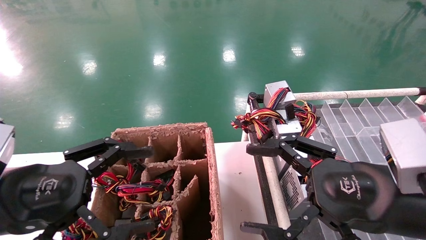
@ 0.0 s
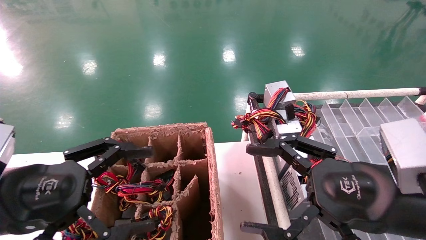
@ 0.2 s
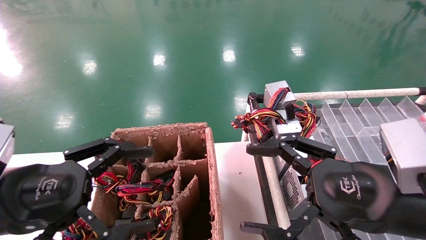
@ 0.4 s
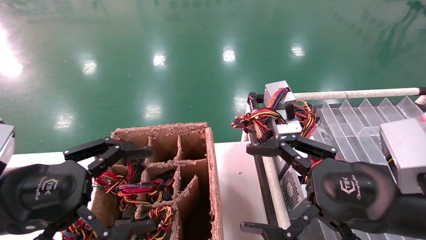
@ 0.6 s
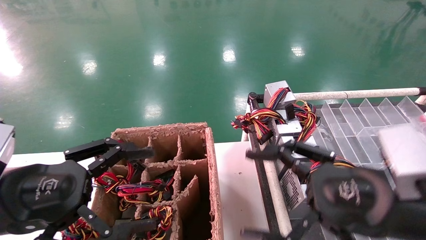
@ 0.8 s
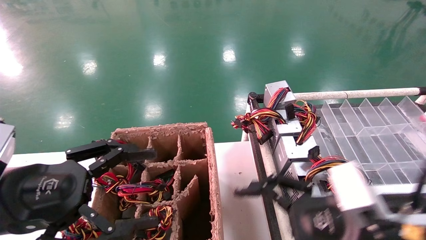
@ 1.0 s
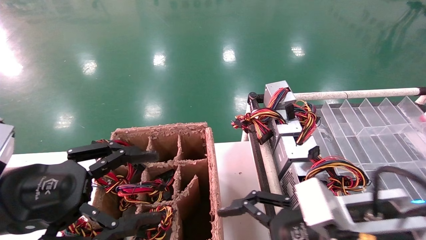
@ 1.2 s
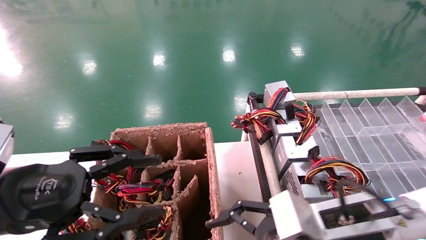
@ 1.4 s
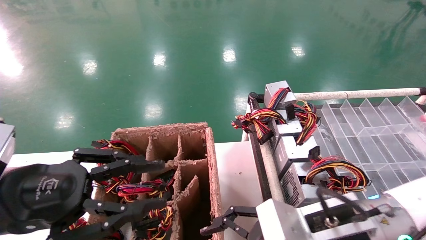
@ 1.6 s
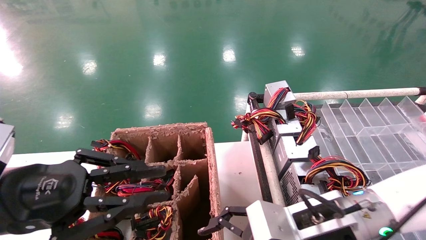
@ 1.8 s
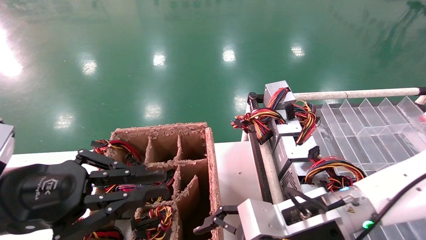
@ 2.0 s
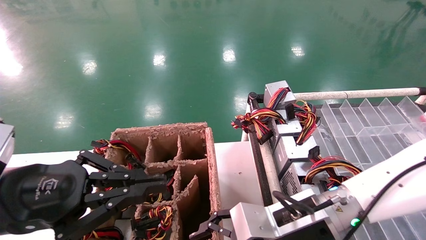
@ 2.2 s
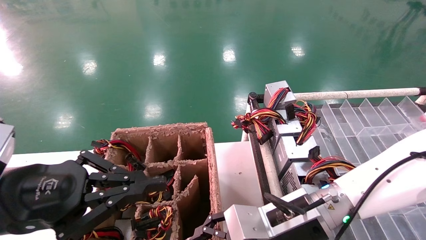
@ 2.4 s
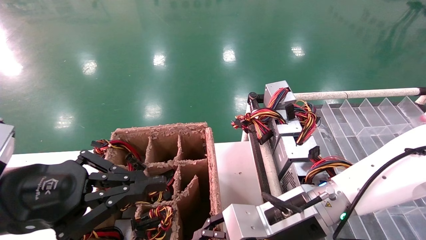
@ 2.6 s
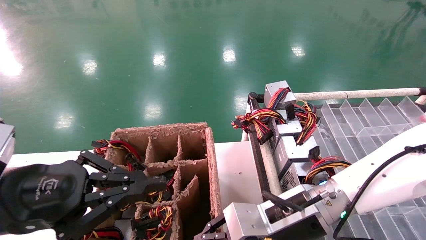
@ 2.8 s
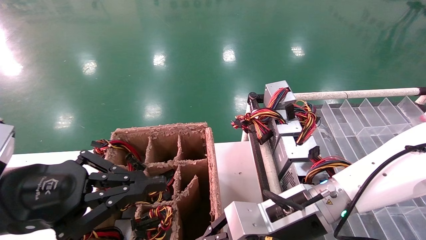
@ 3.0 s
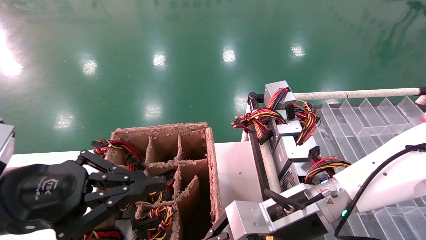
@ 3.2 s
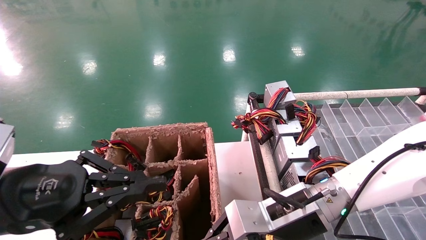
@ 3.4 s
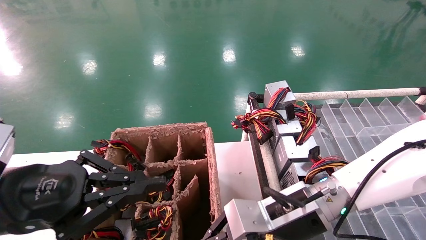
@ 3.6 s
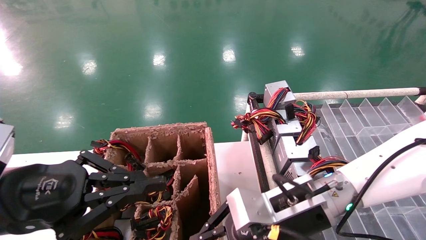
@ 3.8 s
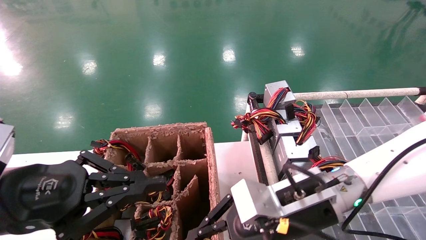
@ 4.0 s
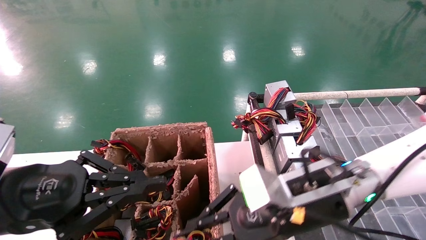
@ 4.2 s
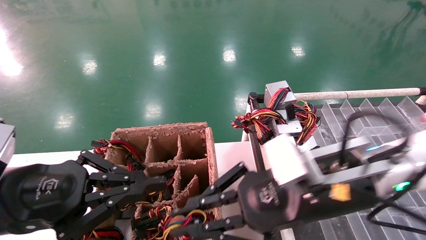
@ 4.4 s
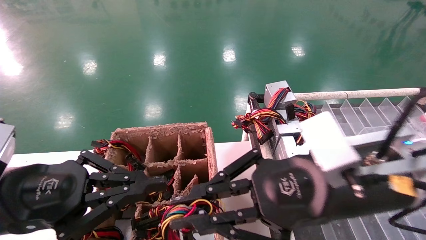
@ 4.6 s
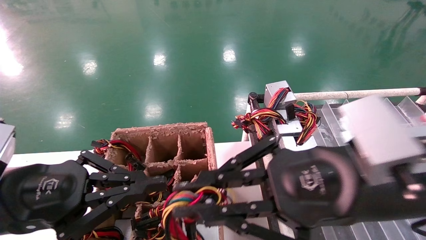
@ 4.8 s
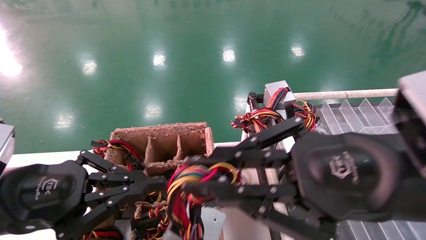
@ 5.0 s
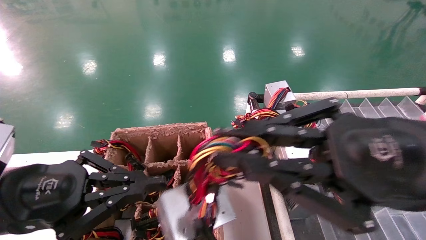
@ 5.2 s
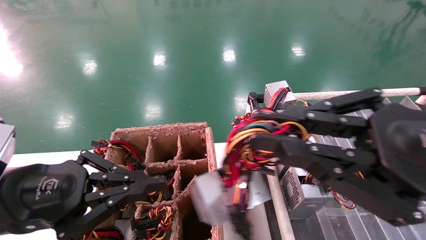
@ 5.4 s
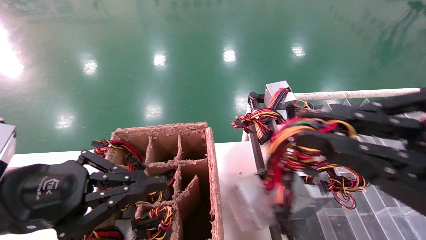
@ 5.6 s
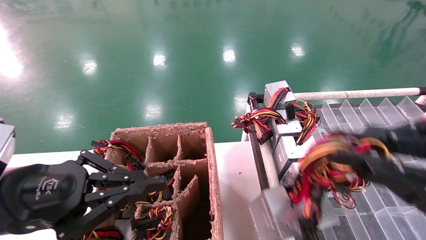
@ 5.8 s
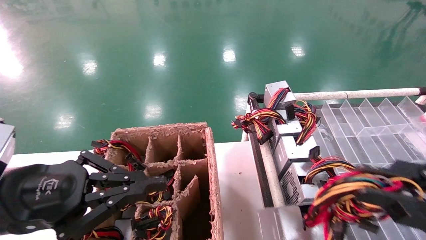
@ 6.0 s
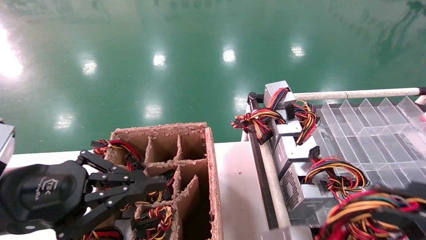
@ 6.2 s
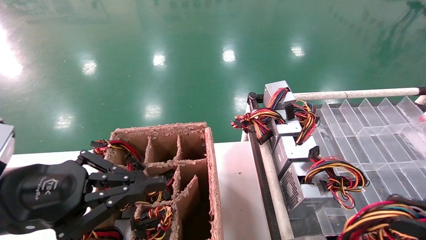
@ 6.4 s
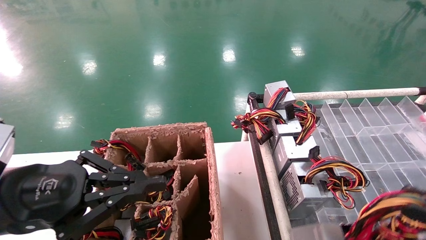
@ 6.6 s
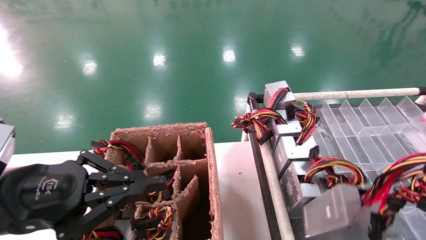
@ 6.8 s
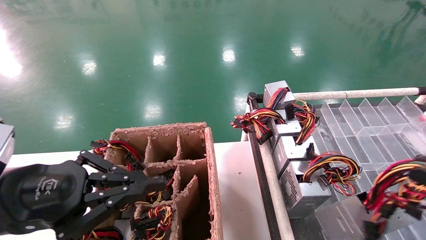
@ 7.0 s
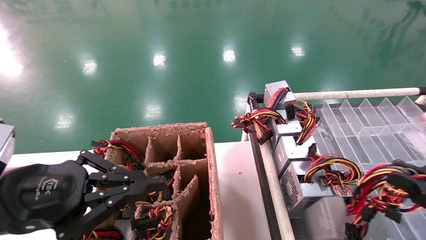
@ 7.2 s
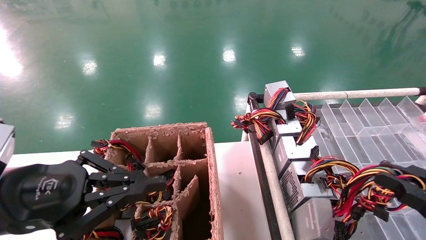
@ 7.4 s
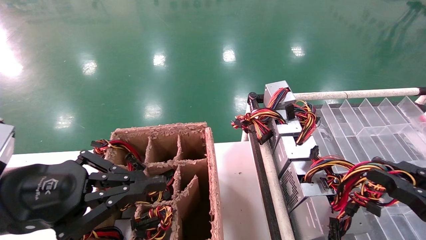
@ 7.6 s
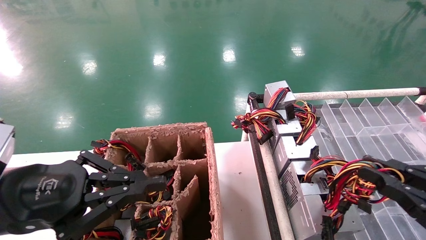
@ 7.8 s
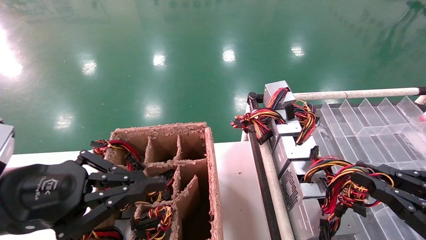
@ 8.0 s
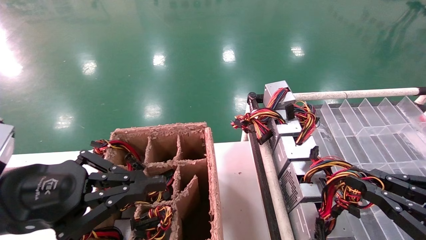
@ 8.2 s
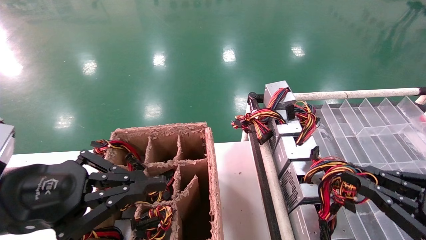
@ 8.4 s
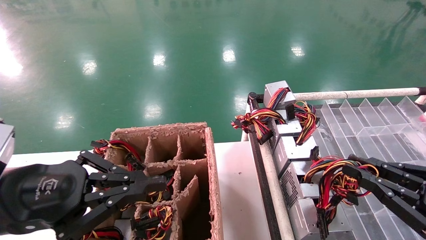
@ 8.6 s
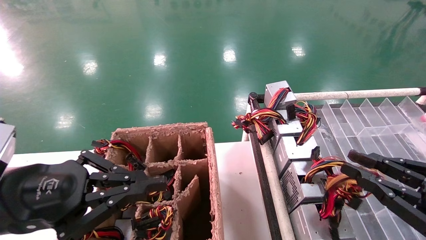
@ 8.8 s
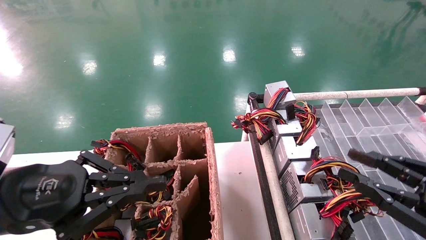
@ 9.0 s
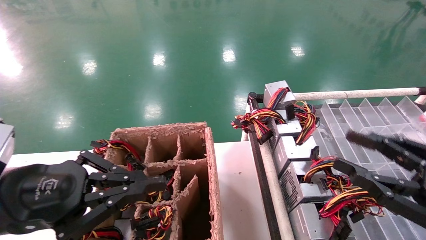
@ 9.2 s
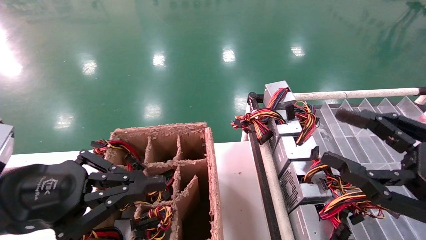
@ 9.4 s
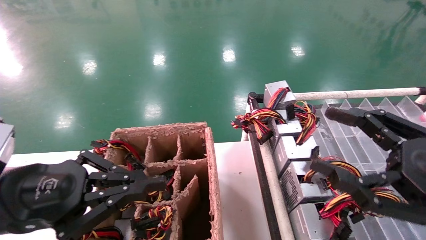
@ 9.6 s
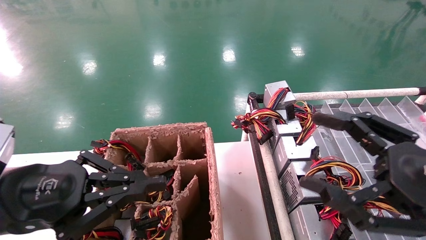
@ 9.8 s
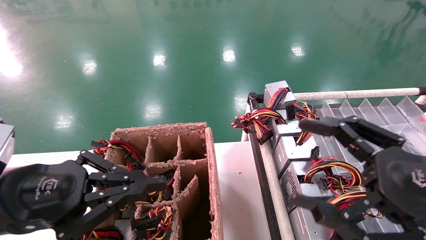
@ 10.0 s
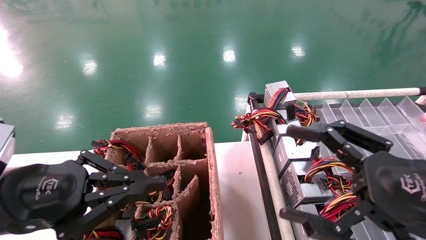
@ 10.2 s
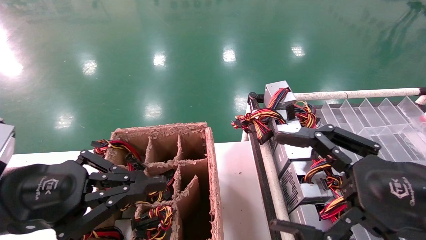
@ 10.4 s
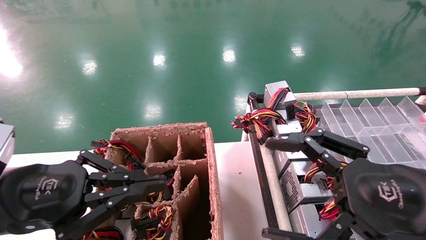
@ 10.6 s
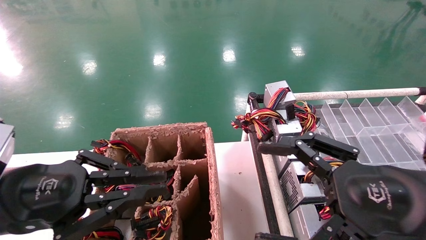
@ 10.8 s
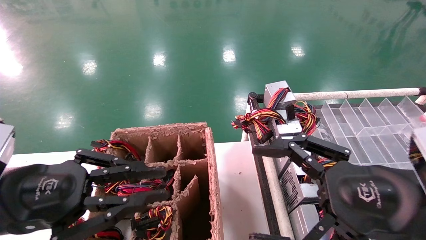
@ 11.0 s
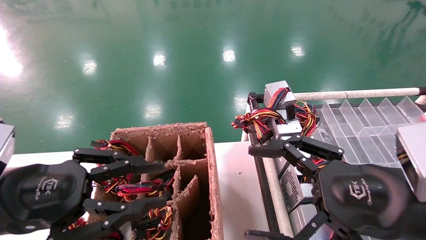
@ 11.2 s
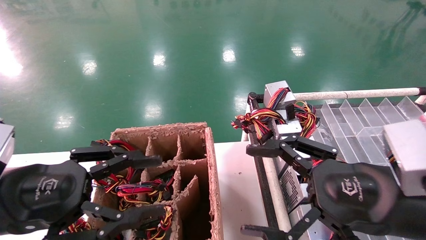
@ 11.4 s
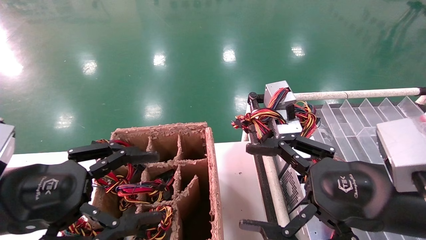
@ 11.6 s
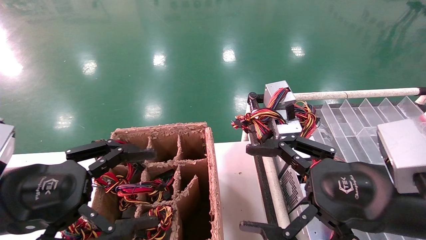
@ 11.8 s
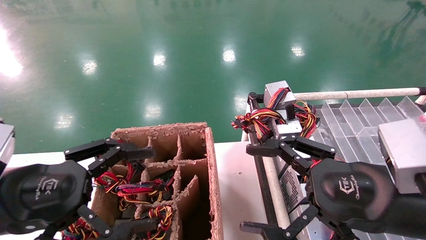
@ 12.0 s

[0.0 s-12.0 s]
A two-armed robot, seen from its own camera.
Step, 1.2 to 3.4 s: Grab the main unit power supply from the containment box.
Step, 3.6 to 8.8 s: Place the main unit power supply in the designated area.
0.0 to 1.6 s: The right gripper goes some 10 cm to the left and downward; the left gripper closes its fingers.
1.6 to 3.0 s: The left gripper closes its fingers. Meanwhile the right gripper moves roughly 5 cm, and closes up.
3.0 to 4.4 s: The right gripper travels upward by approximately 10 cm.
4.4 to 6.0 s: The right gripper heads to the right and backward, covering some 25 cm.
6.0 to 7.6 s: The right gripper is displaced downward by approximately 5 cm.
7.6 to 9.0 s: The grippers stay close to where they were, moving slightly.
9.0 to 10.4 s: The right gripper goes approximately 10 cm to the left, and opens.
10.4 to 12.0 s: The left gripper opens its fingers.

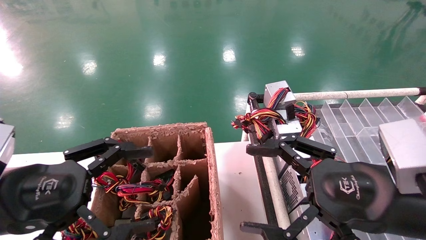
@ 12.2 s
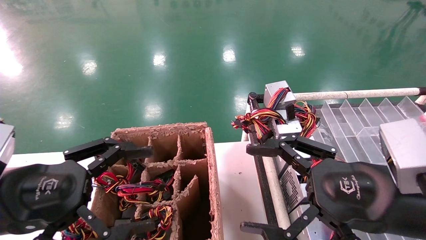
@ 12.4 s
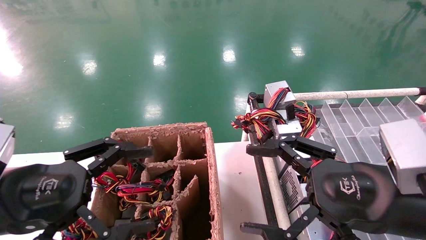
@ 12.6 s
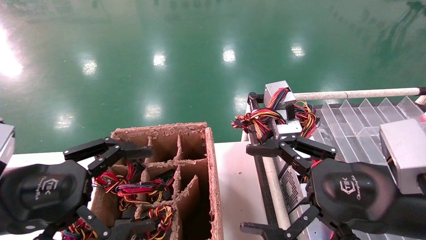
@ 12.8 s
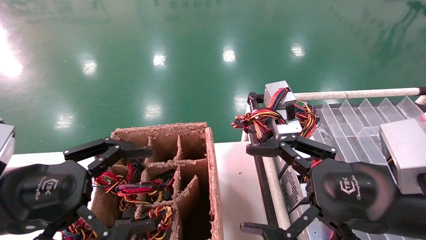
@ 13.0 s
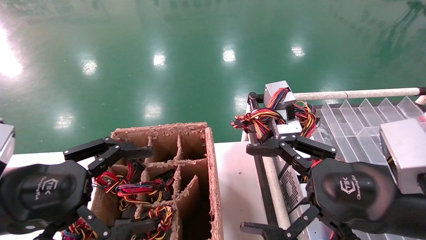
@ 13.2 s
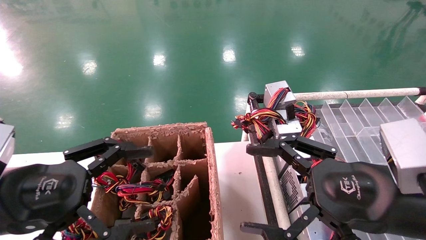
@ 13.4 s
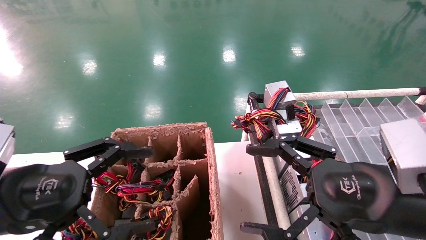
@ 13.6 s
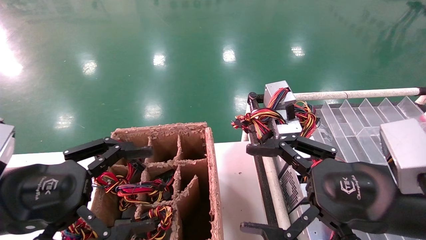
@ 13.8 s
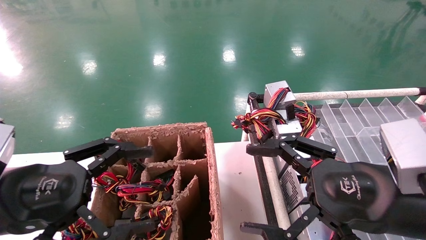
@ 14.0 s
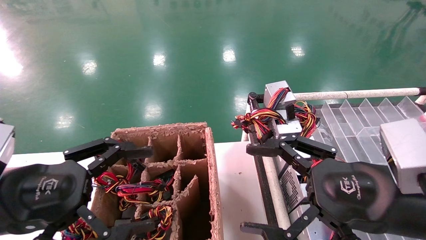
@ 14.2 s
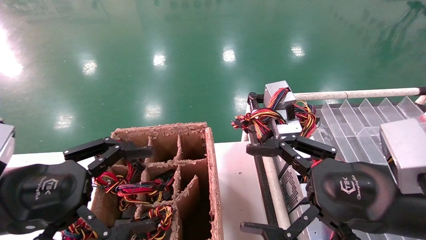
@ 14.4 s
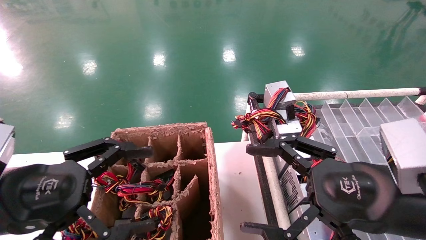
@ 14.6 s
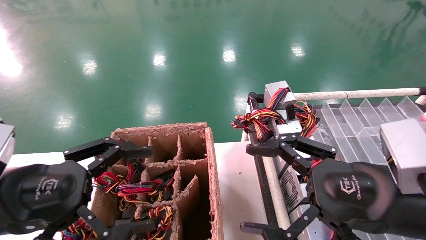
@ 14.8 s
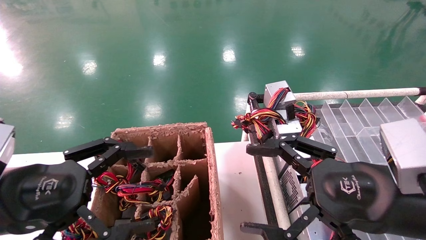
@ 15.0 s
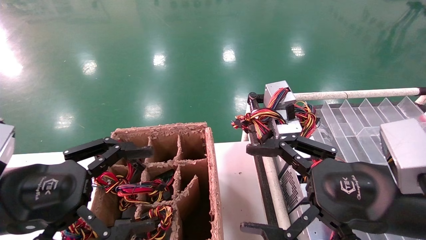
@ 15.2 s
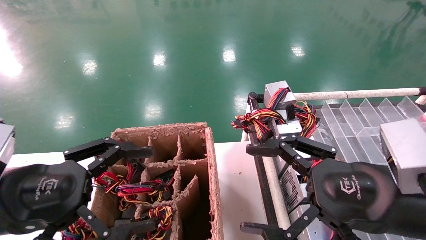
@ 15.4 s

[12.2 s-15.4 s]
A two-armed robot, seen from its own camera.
12.2 to 15.4 s: Both grippers stay about where they are.
